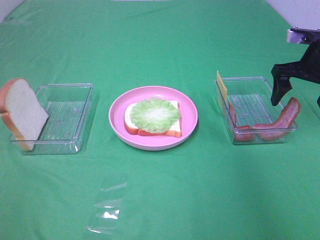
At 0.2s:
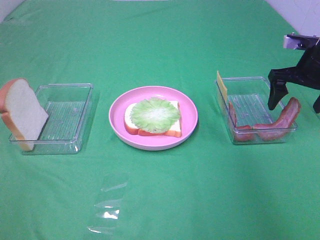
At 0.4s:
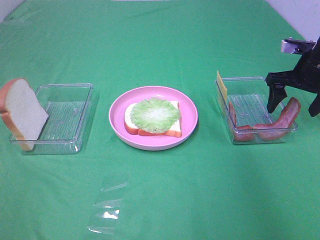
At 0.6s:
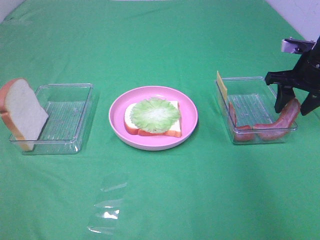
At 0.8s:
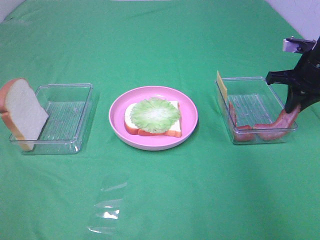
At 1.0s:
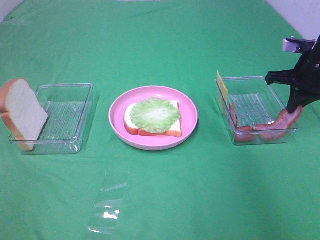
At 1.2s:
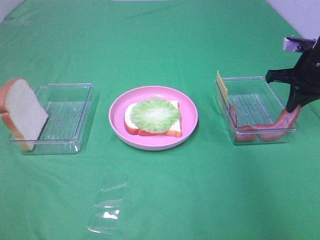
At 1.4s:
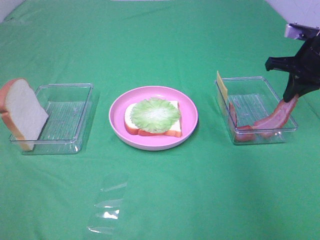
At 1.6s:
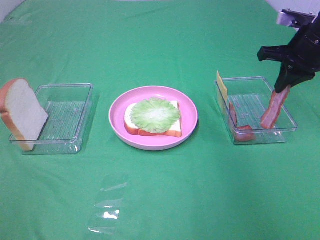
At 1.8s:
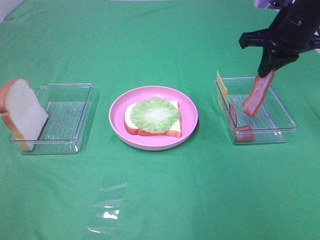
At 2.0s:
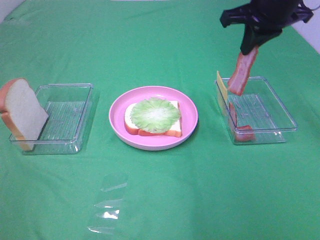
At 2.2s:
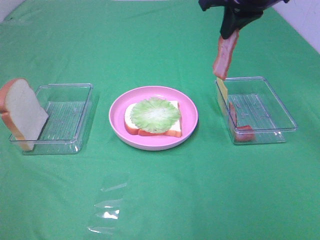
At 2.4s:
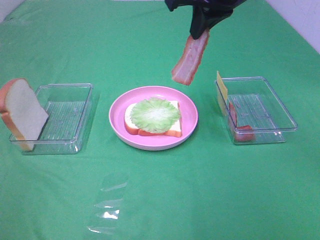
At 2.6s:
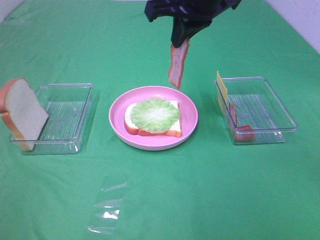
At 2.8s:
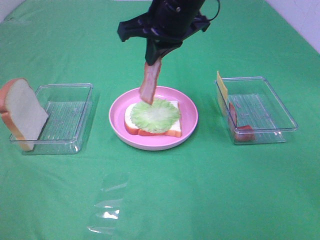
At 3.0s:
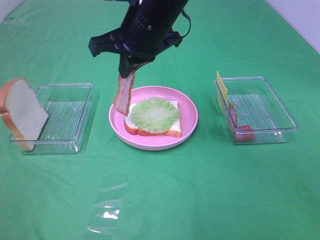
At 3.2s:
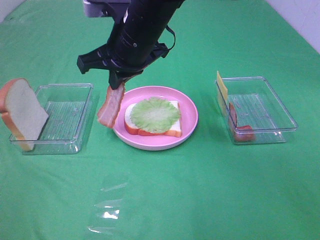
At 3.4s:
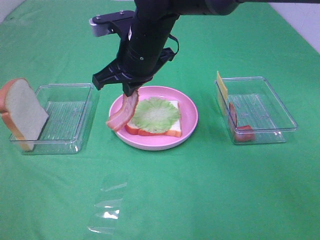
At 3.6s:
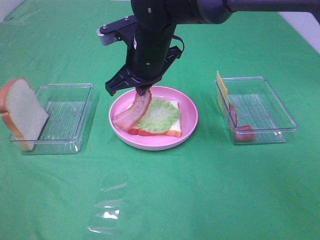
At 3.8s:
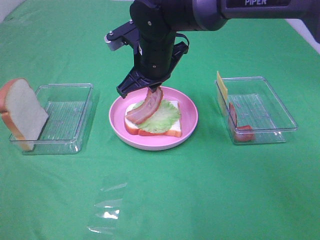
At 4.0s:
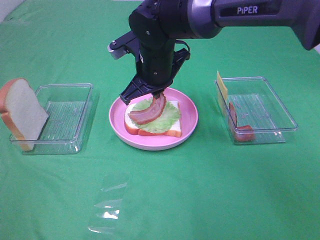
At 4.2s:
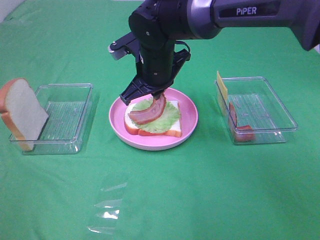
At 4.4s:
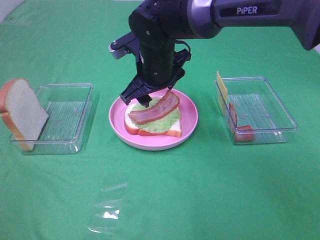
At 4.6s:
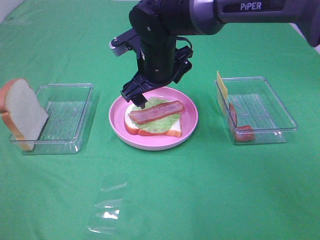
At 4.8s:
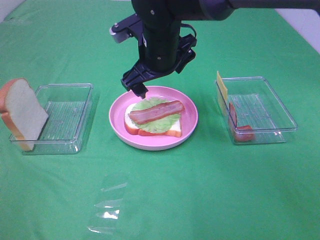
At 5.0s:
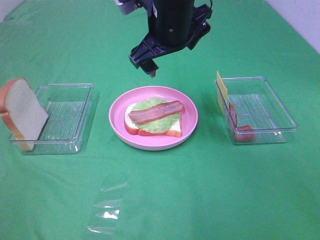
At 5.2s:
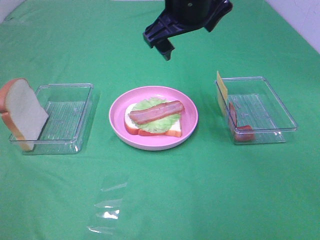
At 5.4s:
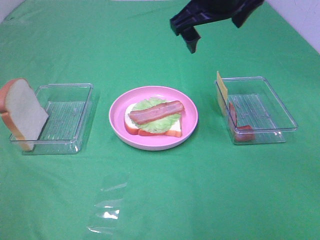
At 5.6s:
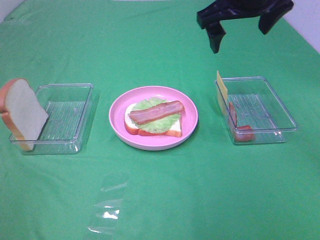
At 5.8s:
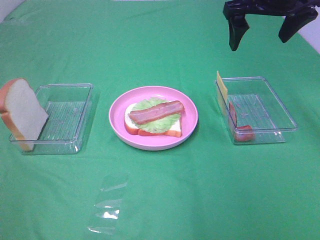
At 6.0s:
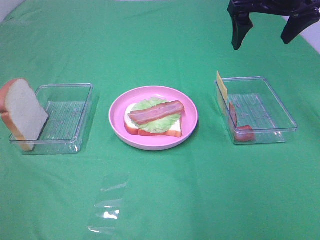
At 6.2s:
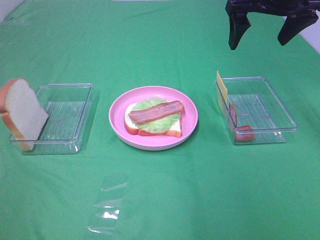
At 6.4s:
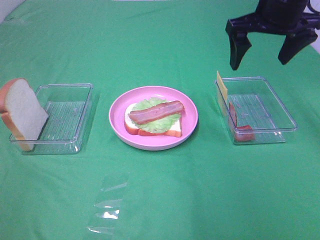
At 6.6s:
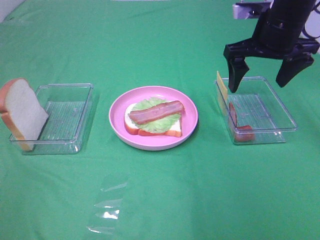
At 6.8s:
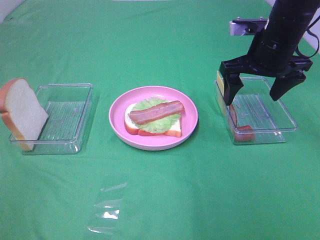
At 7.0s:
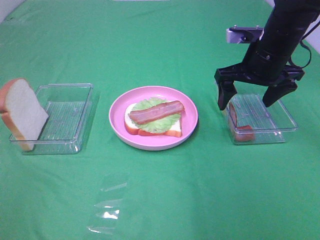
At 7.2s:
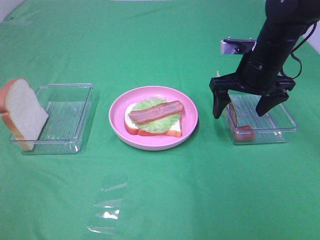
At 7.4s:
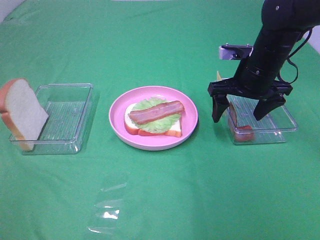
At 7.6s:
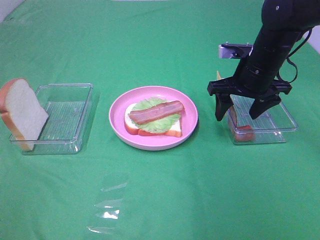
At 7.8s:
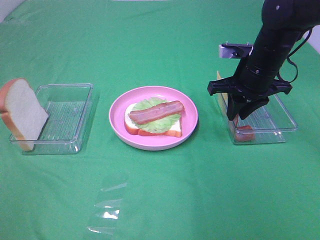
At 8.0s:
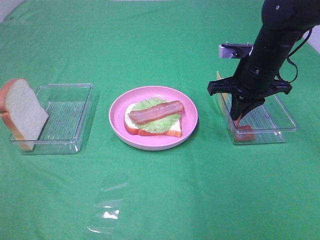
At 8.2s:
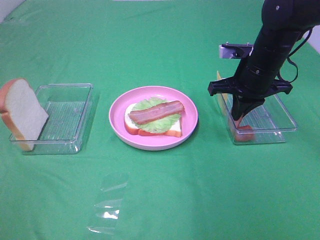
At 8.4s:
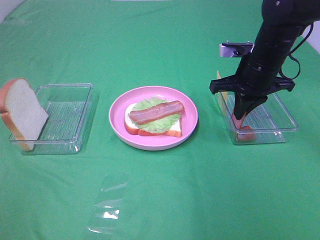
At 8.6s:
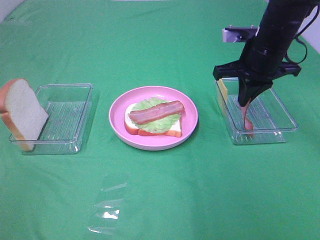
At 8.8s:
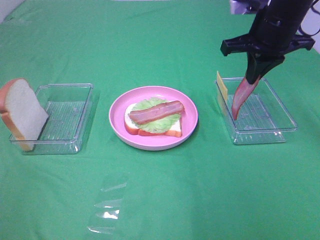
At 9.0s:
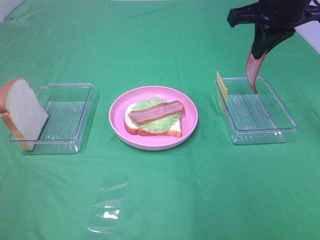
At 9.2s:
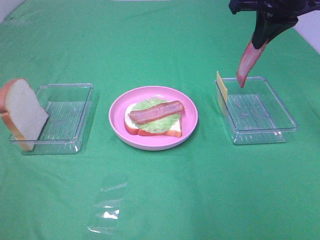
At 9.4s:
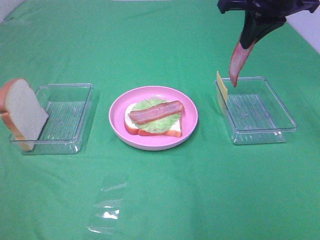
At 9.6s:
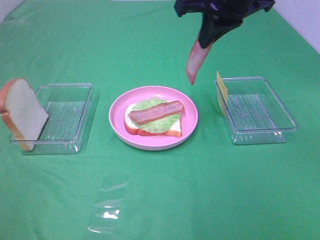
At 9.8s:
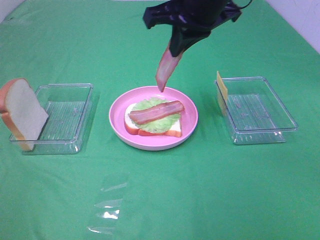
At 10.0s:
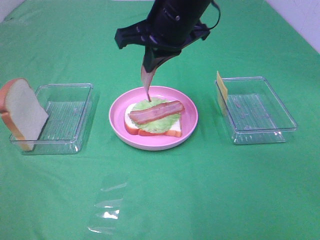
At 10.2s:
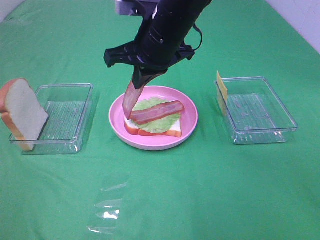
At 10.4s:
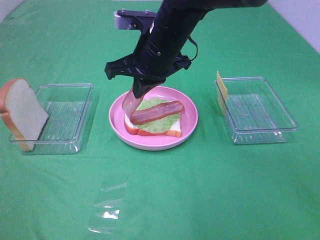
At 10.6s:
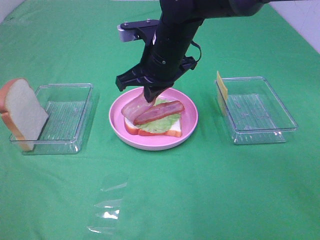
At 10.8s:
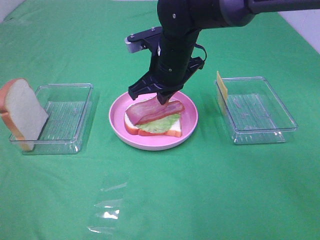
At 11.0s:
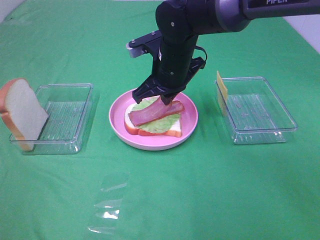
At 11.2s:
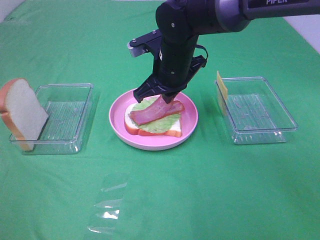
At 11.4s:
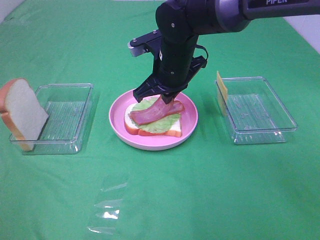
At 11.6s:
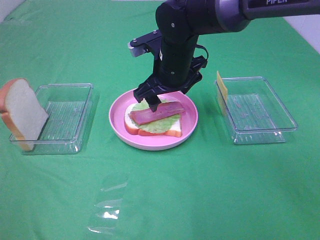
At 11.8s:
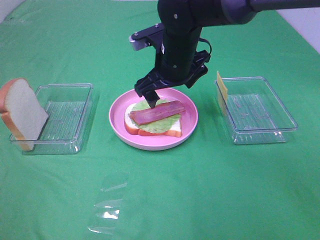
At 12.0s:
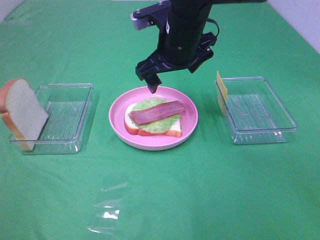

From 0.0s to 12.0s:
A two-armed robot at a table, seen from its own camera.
Task of the whole recording: Make sandwiches.
Step, from 1.2s to 4.6s: Right hand:place bacon on lettuce slice.
Step, from 4.8s to 8.2s: Right hand:grab the bacon.
Step, from 8.4s to 11.6s: Right hand:place bacon on bacon.
From 0.0s to 1.6s: The right gripper closes its fingers.
From 1.6s to 3.0s: The right gripper heads to the left, covering approximately 30 cm.
From 3.0s to 4.4s: The right gripper travels downward by approximately 10 cm, and opens up.
From 4.4s to 6.0s: The right gripper is displaced to the right and upward by approximately 25 cm.
From 6.0s to 7.6s: The right gripper is displaced downward by approximately 15 cm.
From 7.6s to 9.0s: The right gripper shifts roughly 15 cm upward, and closes.
From 9.0s to 10.4s: The right gripper travels to the left and downward by some 20 cm.
From 10.4s to 12.0s: The right gripper opens.

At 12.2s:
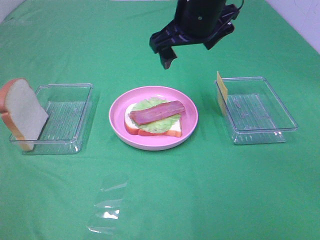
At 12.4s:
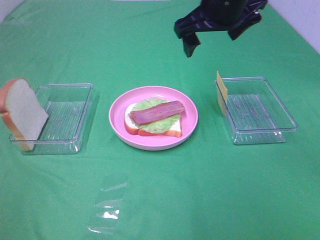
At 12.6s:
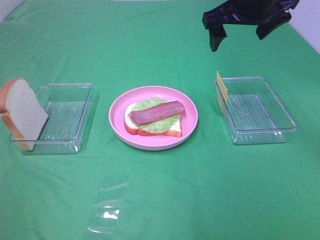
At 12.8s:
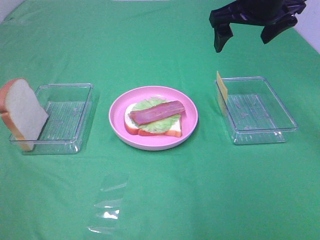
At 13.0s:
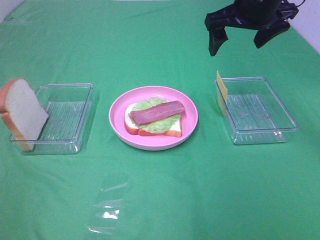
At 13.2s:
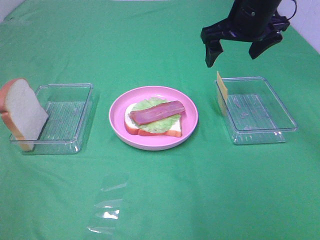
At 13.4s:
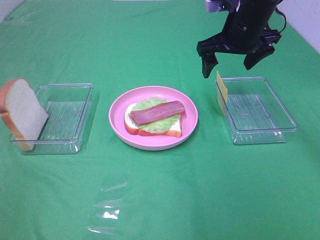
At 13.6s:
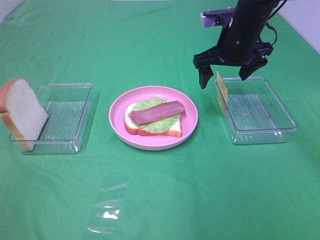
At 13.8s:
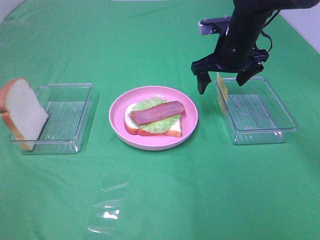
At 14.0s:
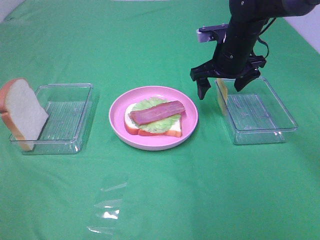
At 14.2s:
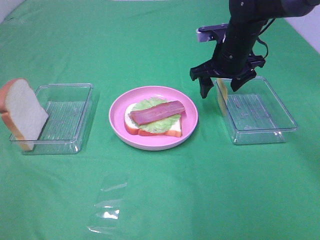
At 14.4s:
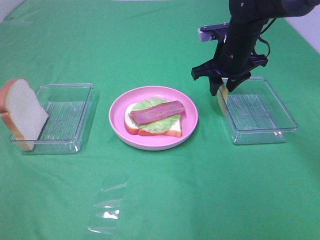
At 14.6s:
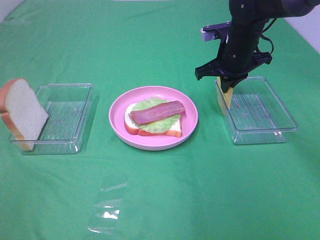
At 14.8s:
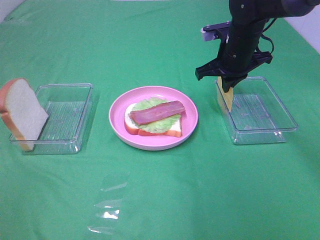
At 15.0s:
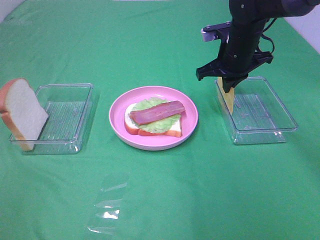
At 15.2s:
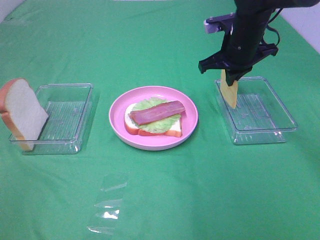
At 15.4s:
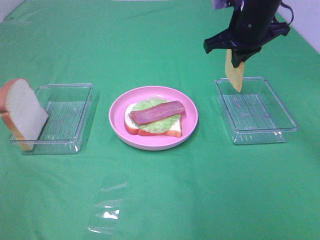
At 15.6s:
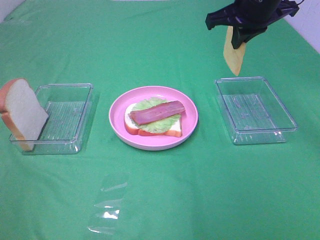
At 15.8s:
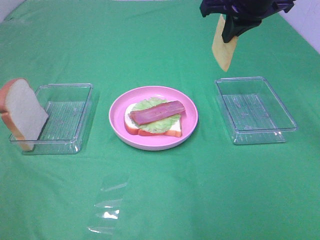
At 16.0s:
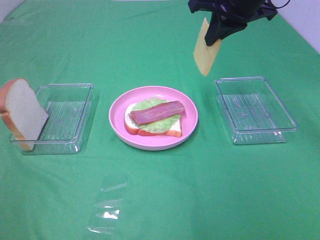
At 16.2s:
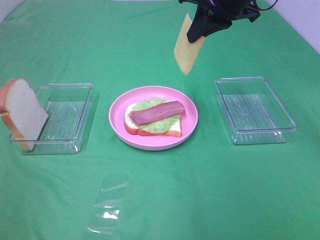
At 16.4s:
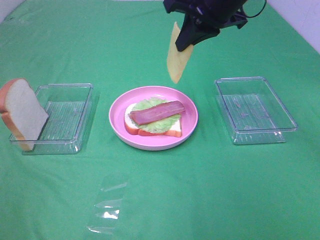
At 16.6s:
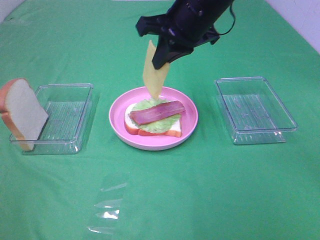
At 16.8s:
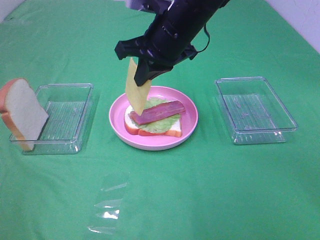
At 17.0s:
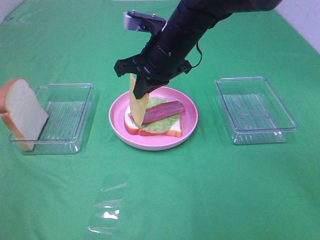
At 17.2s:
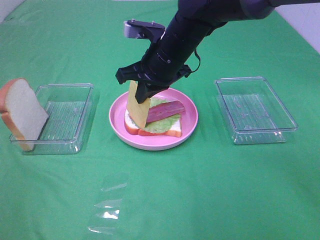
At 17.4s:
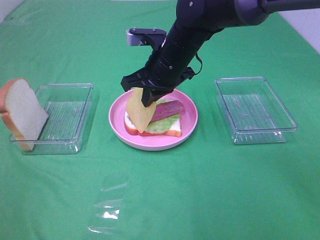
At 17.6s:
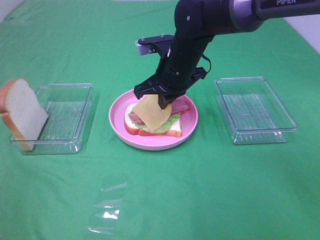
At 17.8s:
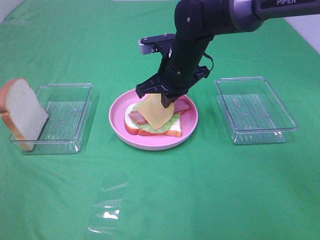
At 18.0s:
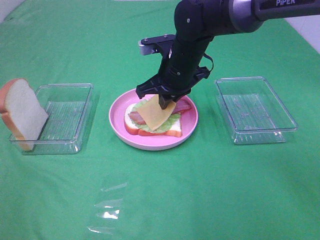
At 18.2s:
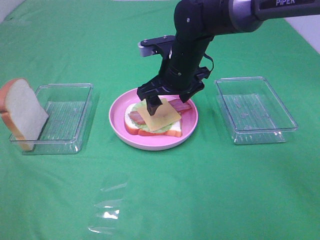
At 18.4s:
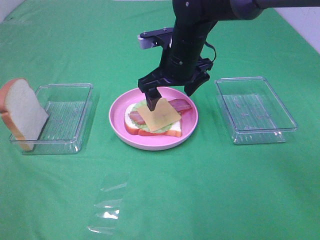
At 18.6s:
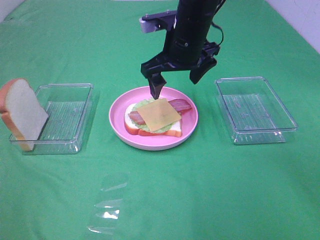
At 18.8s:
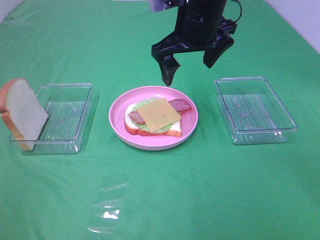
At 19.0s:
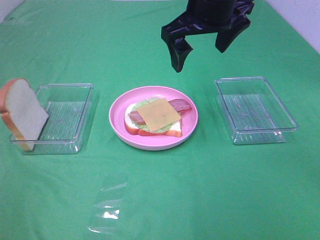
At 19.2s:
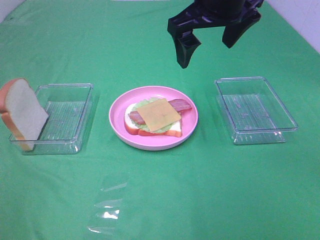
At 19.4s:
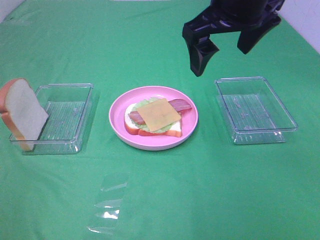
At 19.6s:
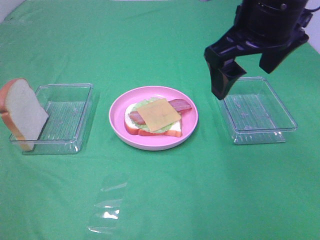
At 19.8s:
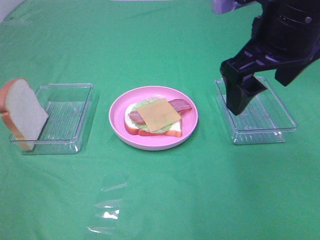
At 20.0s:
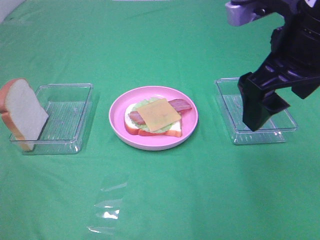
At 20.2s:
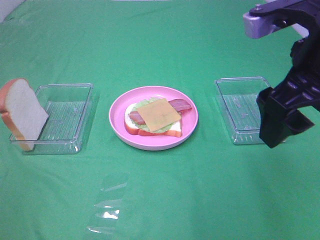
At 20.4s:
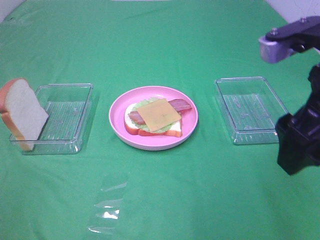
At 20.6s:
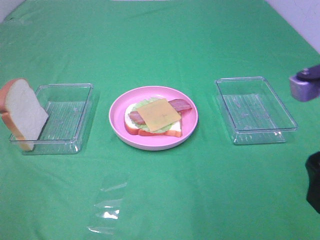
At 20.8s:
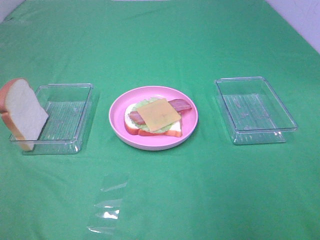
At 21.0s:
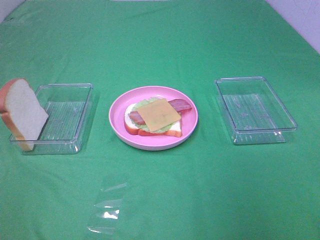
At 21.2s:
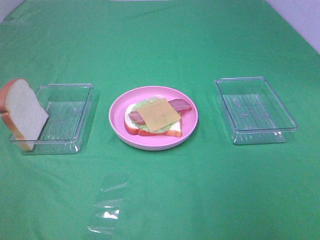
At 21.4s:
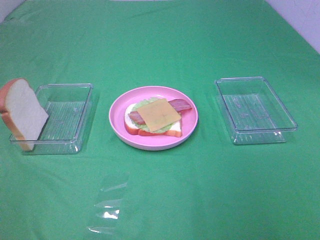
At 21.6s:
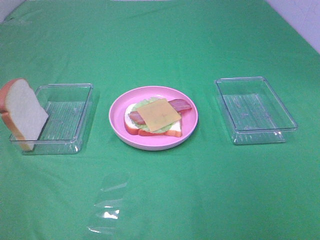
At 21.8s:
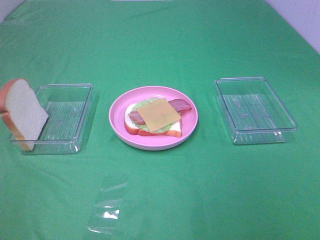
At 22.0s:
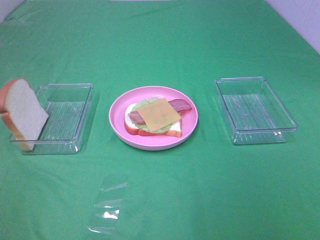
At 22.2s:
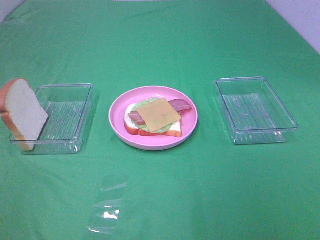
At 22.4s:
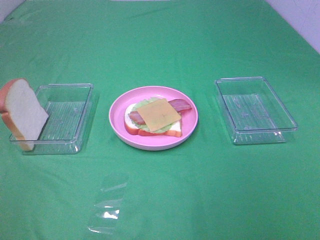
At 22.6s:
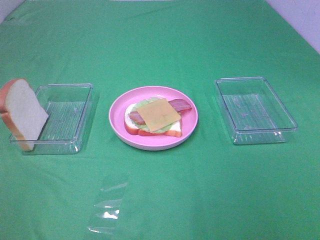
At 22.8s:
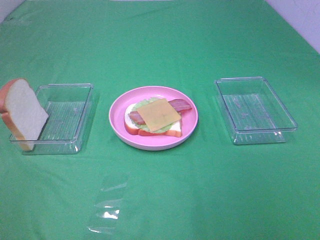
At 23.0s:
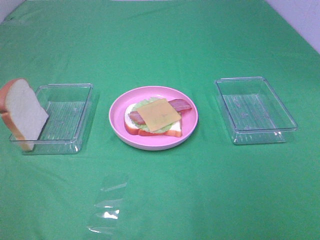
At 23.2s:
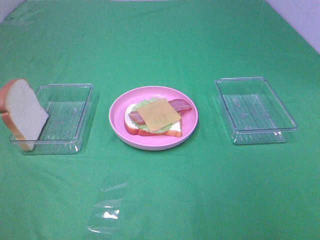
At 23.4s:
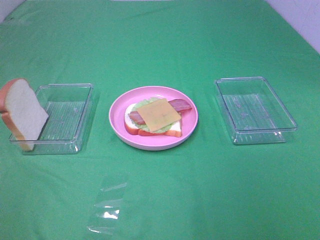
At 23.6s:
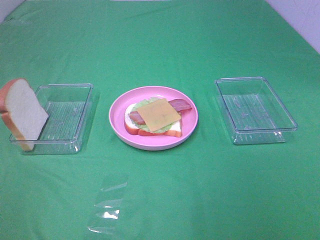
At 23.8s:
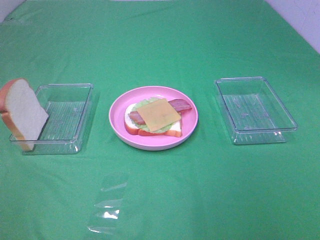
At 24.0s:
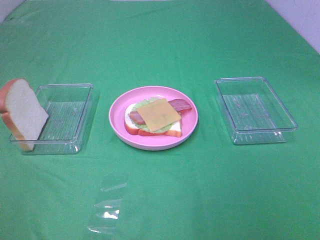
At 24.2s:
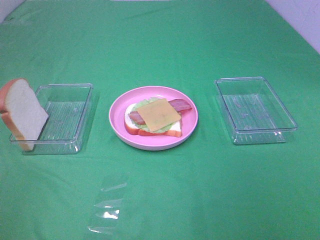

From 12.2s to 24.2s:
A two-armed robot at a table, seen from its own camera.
Task of the whole recording: Make sandwiches.
Step, from 12.2s to 14.6s: Right hand:grab the cheese slice.
Step, from 14.8s to 18.2s: Right hand:place the cheese slice on top of the bacon.
From 12.2s to 13.8s: The right gripper shifts about 15 cm downward, to the right and forward.
From 13.8s to 15.2s: The right gripper closes.
From 15.2s to 16.6s: The right gripper goes approximately 15 cm to the left, upward and backward.
From 16.6s to 18.2s: The right gripper travels downward by approximately 10 cm, and opens.
From 18.2s to 19.8s: The right gripper goes roughly 25 cm upward, backward and to the right.
From 19.8s to 21.2s: The right gripper heads backward and to the right, covering about 25 cm.
